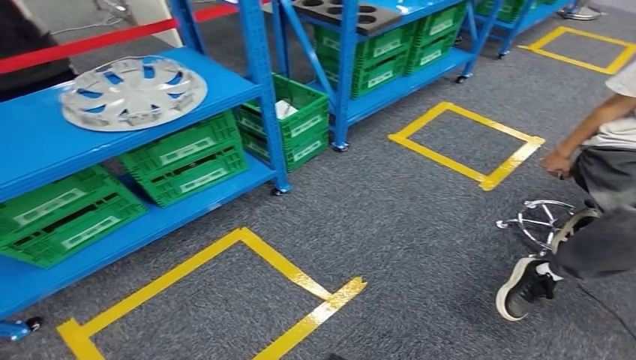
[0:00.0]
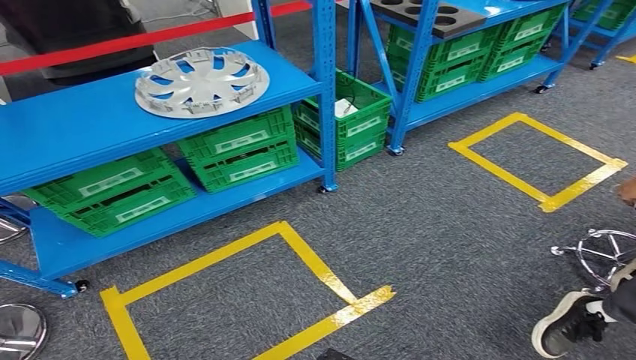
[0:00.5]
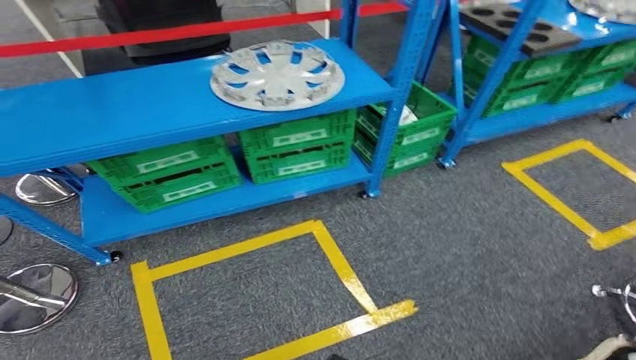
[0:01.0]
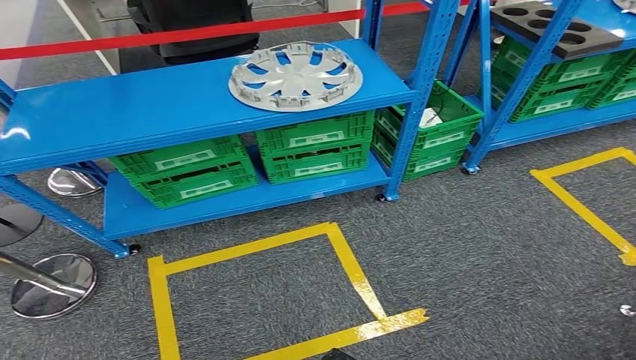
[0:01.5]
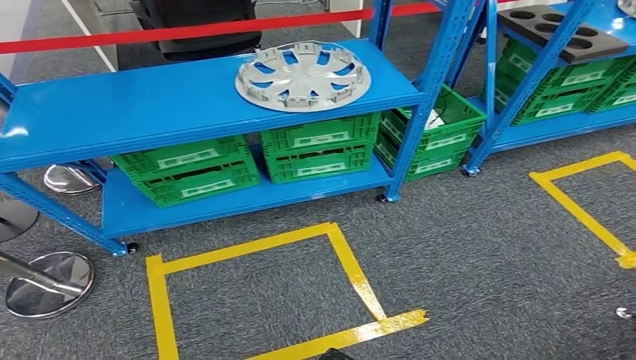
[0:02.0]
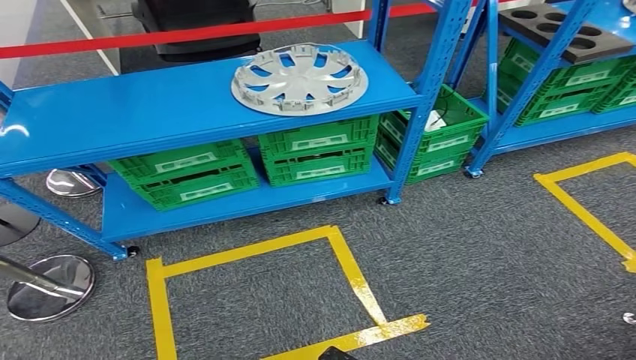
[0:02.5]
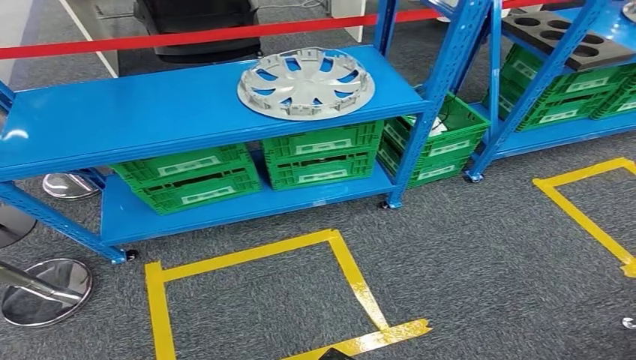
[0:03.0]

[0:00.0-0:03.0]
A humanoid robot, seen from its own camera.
Step, 0:00.0 to 0:03.0: Return to the initial position at the workbench.
